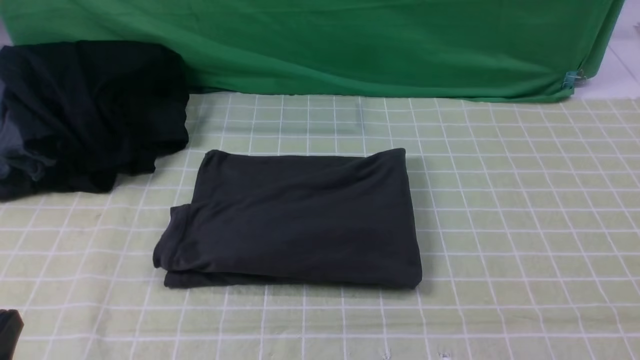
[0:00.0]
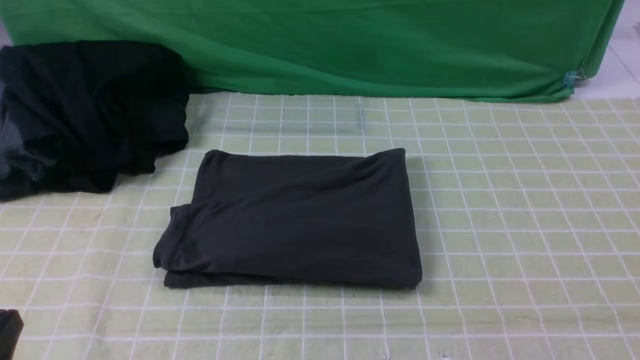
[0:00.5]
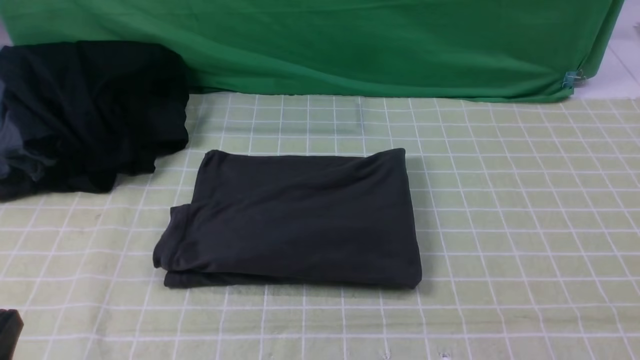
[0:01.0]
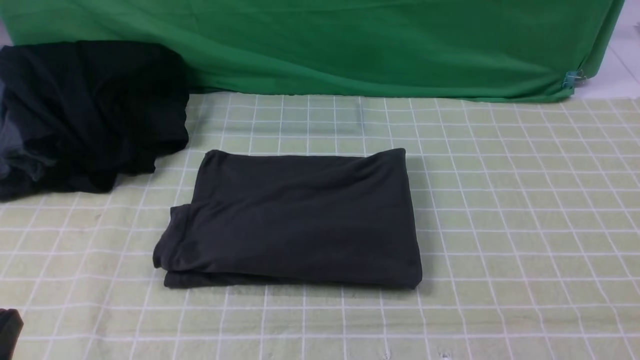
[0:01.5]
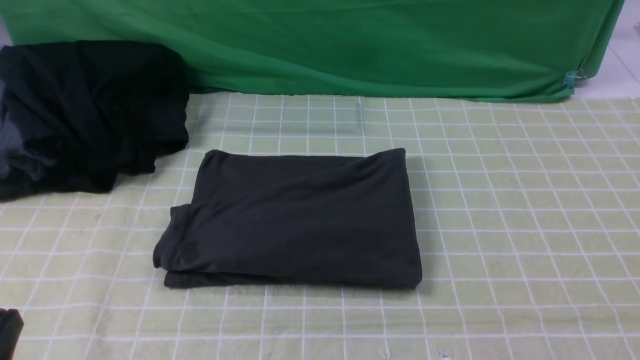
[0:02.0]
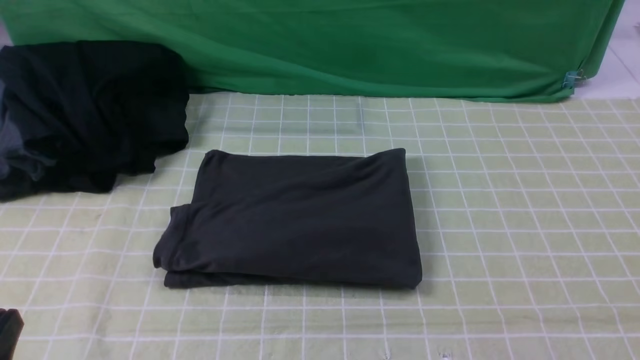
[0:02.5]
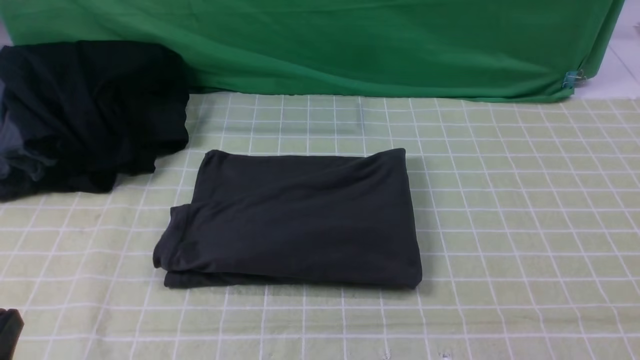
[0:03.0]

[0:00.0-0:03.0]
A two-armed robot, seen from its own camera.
0:01.5 to 0:03.0: Both grippers stay put.
